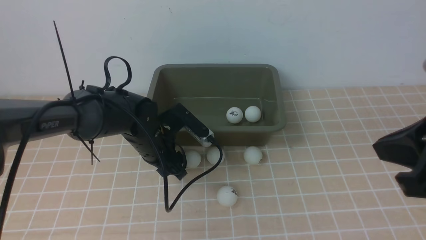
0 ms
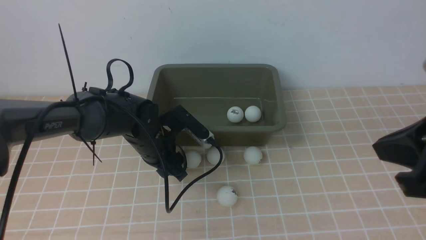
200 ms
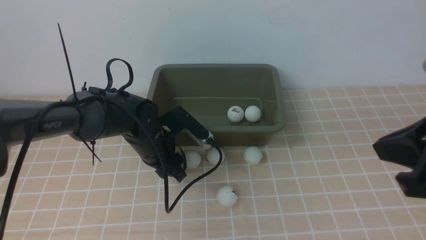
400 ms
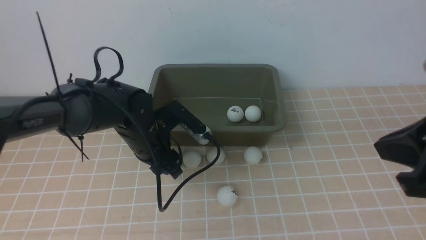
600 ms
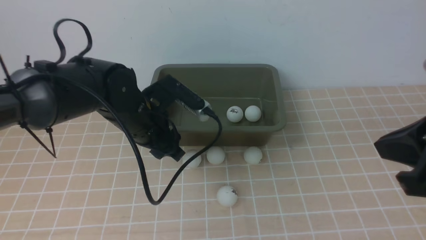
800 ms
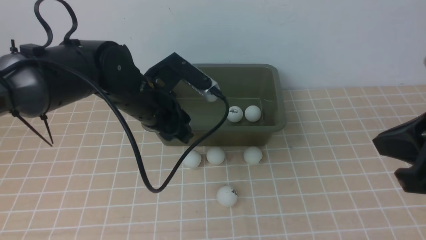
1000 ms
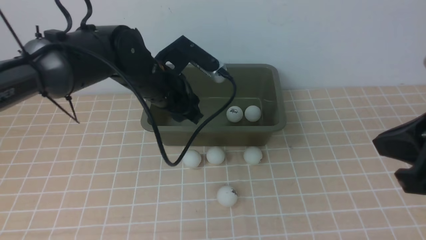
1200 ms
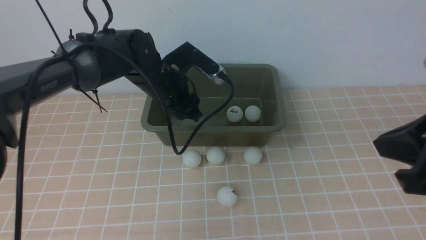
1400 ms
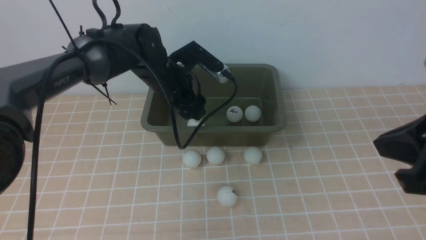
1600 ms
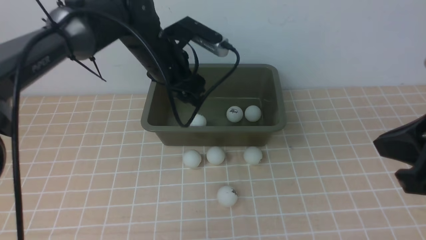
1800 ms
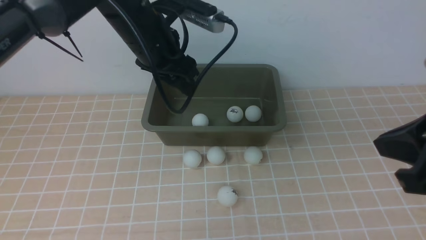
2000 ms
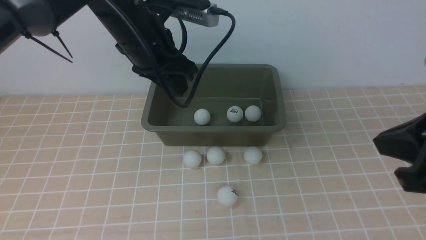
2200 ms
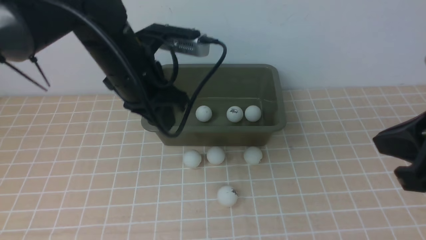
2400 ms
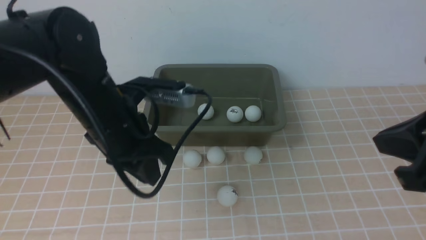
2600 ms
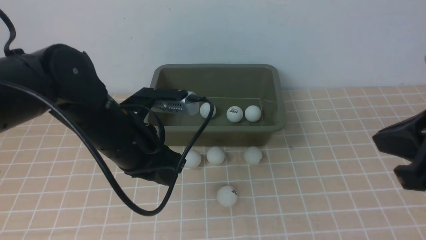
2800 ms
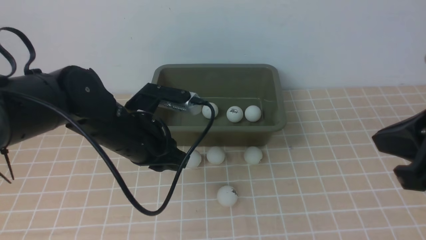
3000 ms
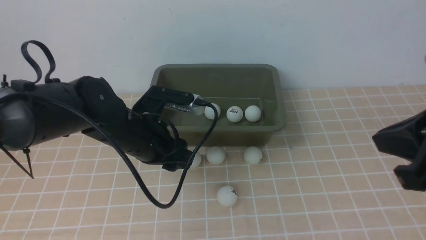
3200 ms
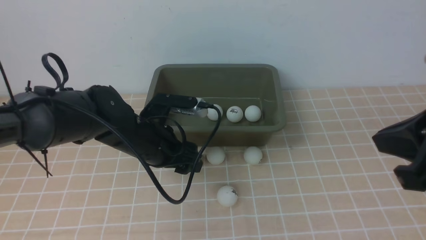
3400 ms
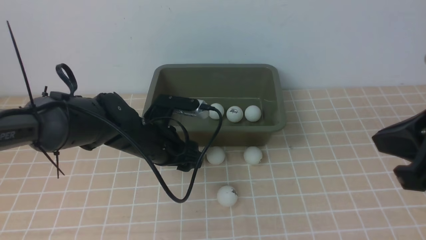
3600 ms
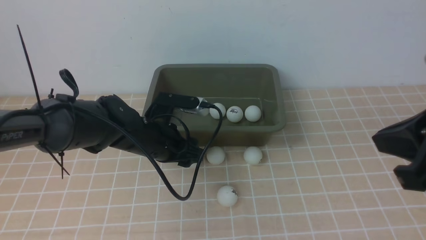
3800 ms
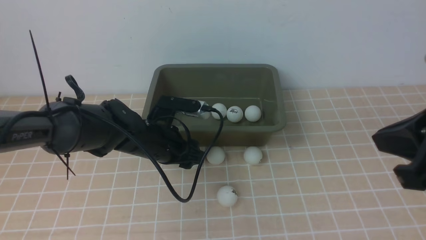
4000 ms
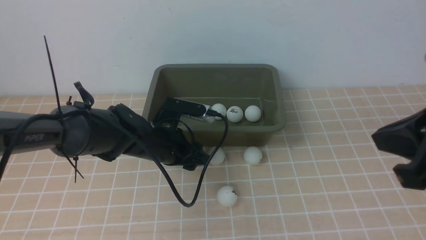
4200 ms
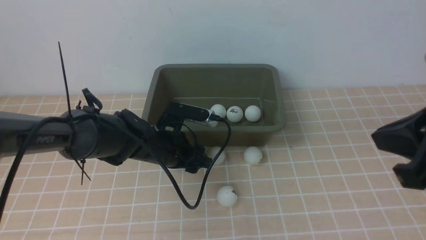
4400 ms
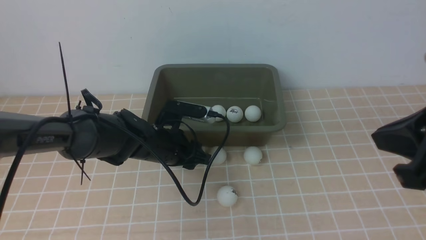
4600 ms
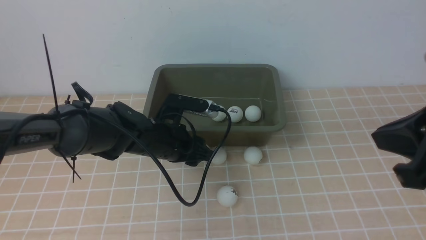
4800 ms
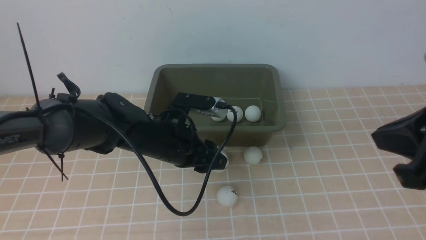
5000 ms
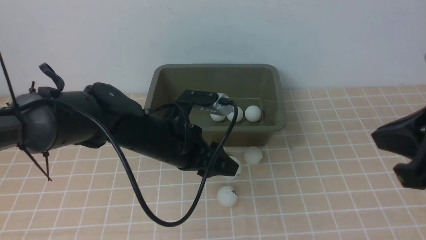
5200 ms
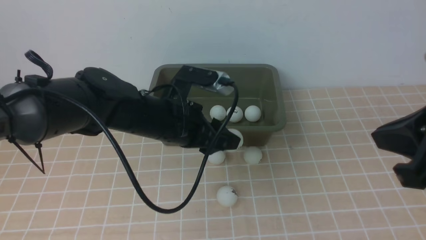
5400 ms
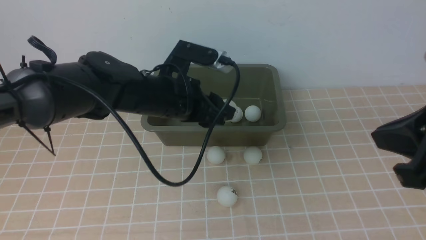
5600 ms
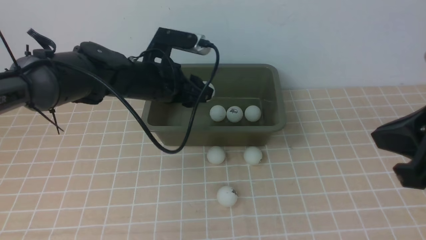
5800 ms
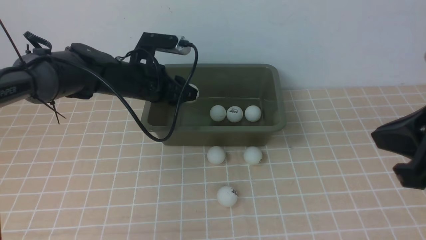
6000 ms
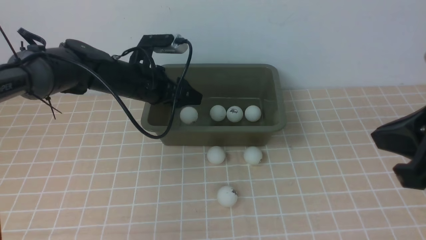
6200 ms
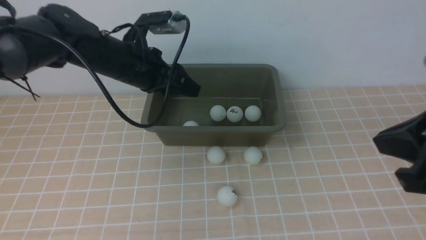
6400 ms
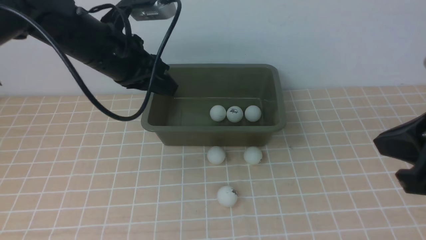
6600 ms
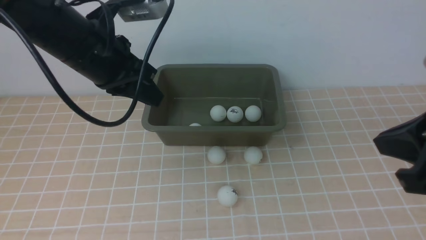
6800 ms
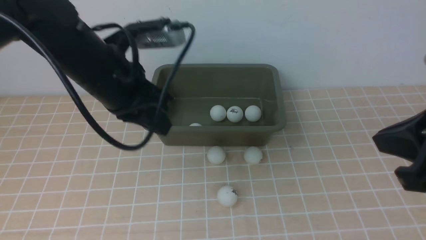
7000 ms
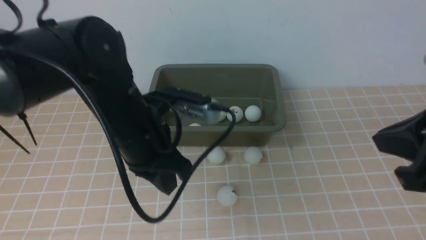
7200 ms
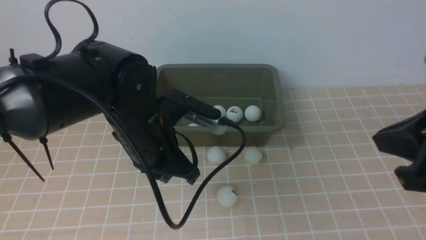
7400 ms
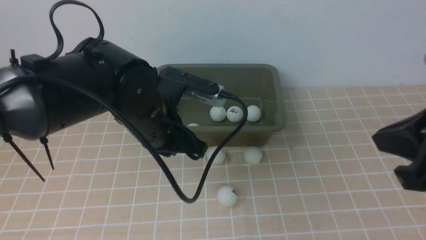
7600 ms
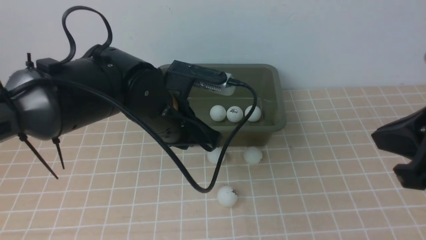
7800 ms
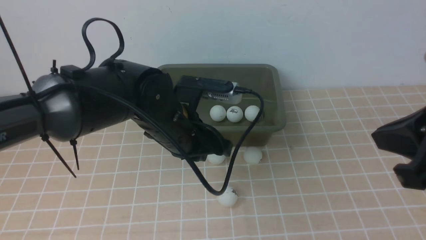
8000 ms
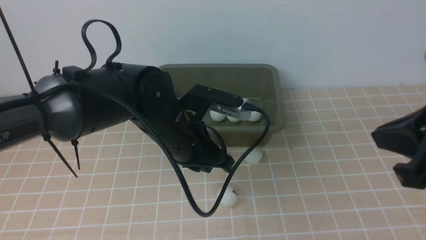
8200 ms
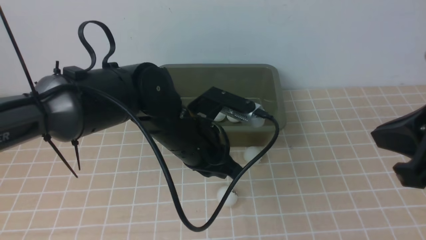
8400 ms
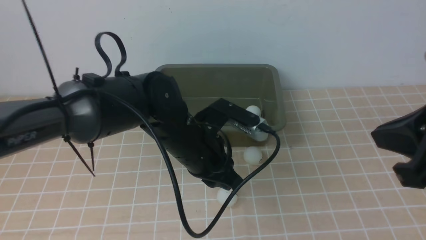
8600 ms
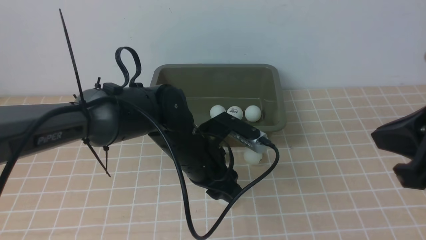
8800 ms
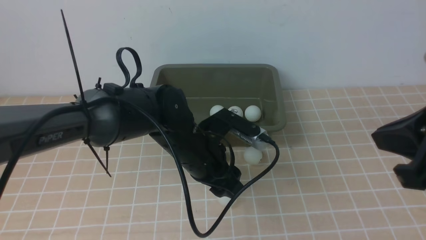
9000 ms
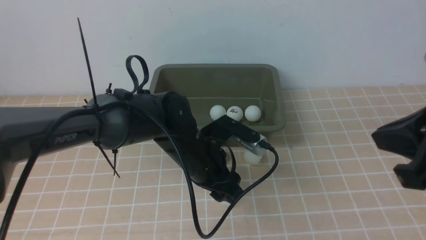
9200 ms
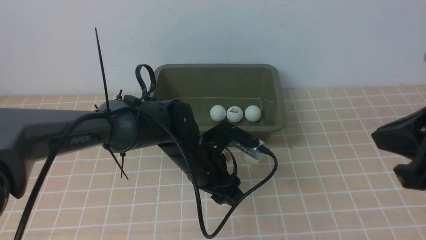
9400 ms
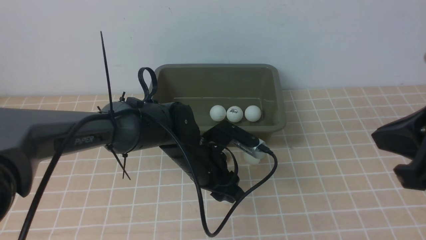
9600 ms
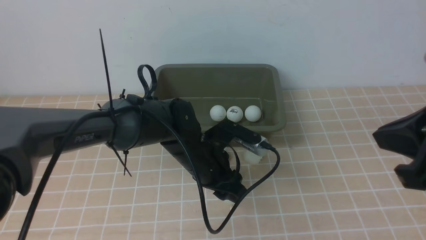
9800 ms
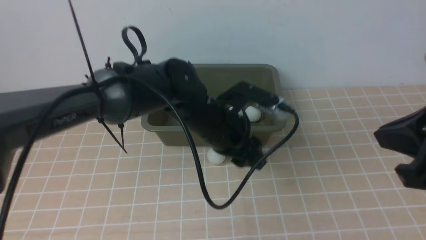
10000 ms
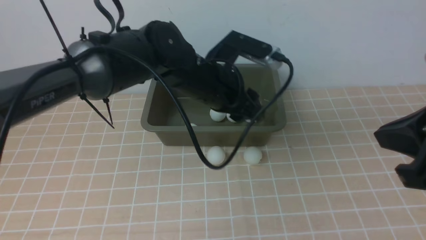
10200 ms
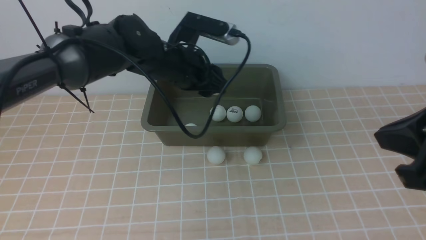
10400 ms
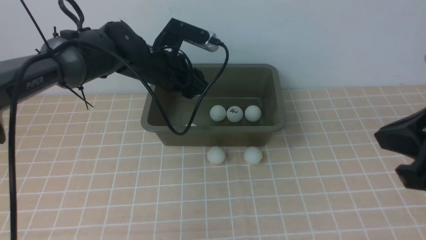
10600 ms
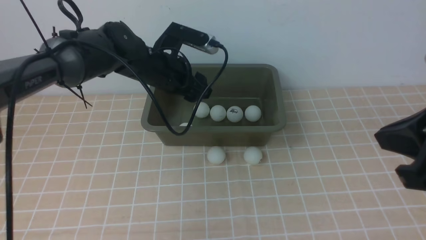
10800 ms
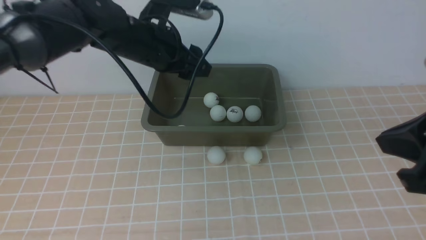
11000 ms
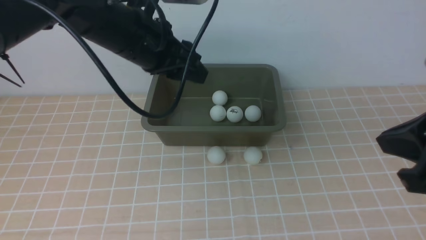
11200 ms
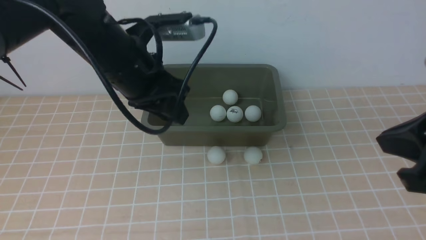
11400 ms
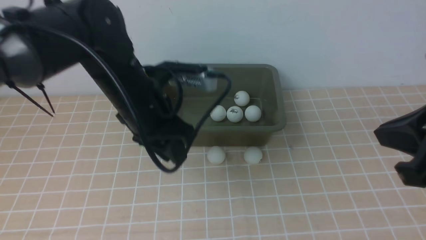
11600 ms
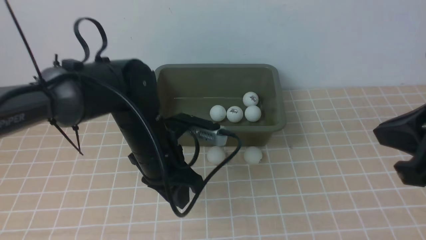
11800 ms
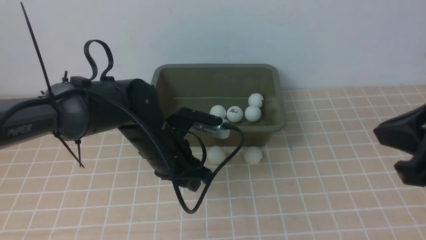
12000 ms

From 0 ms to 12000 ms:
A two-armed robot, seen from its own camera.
Step, from 1000 ms to 1800 ms: use the left arm to put the table tennis ball into the box.
Step, from 2000 ms to 4800 ms: use the left arm to clamp the table tennis ball closest to it.
Step, from 5200 ms to 6400 ms: use the left arm to put the table tennis ball into the box.
Step, from 6600 ms to 10000 ms: use the left arm to clamp the table tennis ball closest to it.
Step, from 10200 ms to 11000 ms: use the left arm to put the table tennis ball into the box.
From 0 ms to 1600 ms: The left gripper moves upward and forward, some 10 cm.
From 1600 ms to 3000 ms: The left gripper moves backward, roughly 15 cm, and closes its fingers.
From 3000 ms to 4400 ms: The left gripper goes approximately 10 cm downward and forward, and opens.
From 4400 ms to 6000 ms: The left gripper travels upward and forward by some 10 cm.
From 6000 ms to 7600 ms: The left gripper heads backward and to the right, covering approximately 15 cm, and closes.
From 7600 ms to 9000 ms: The left gripper moves downward, roughly 10 cm, and opens.
From 9000 ms to 10400 ms: The left gripper is displaced forward and upward by approximately 15 cm.
From 10400 ms to 12000 ms: The left gripper moves backward and downward, roughly 10 cm, and closes its fingers.

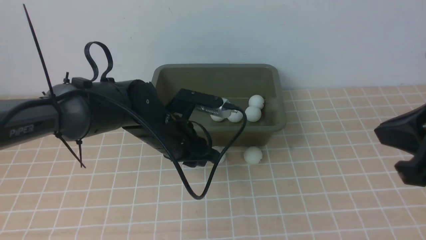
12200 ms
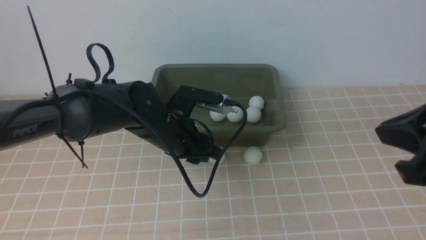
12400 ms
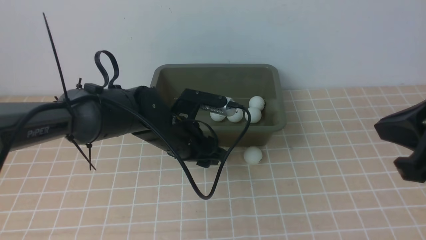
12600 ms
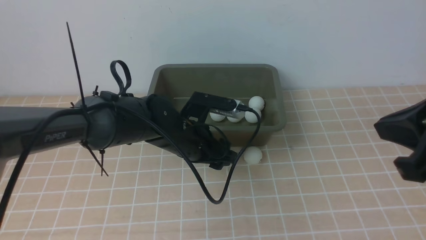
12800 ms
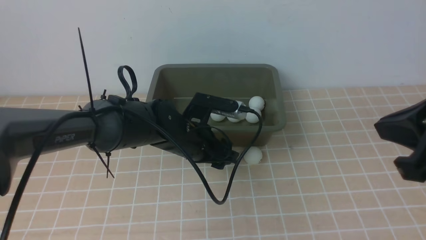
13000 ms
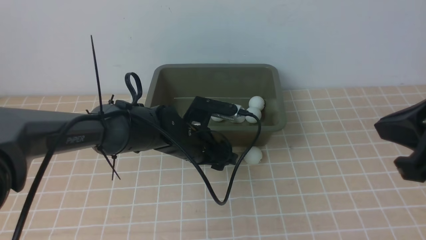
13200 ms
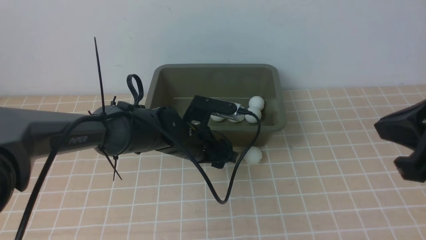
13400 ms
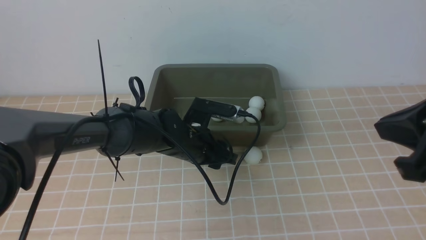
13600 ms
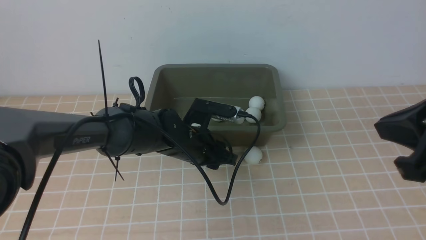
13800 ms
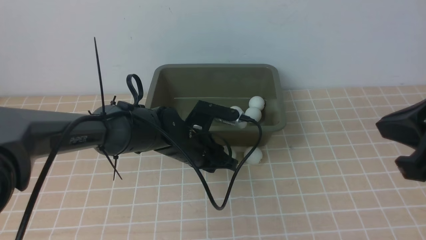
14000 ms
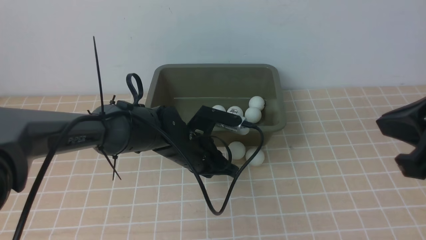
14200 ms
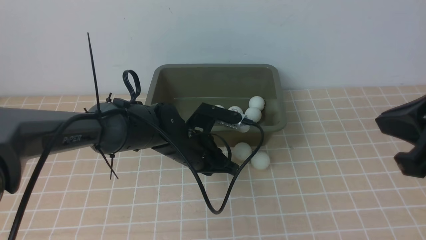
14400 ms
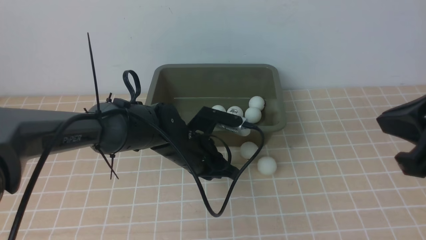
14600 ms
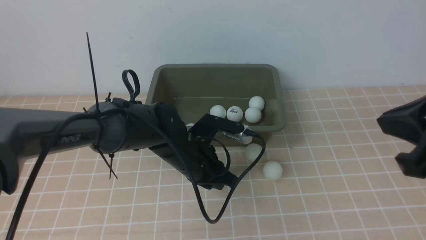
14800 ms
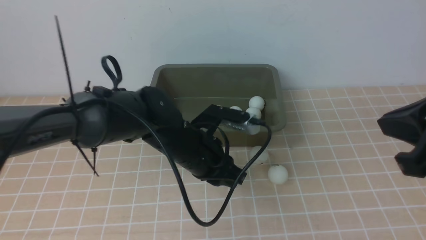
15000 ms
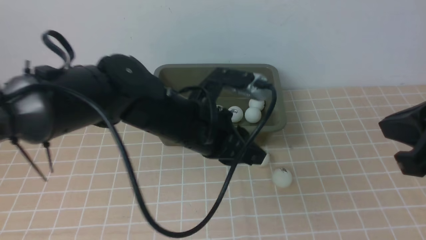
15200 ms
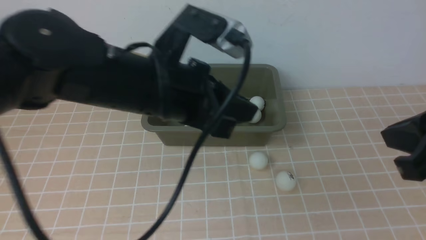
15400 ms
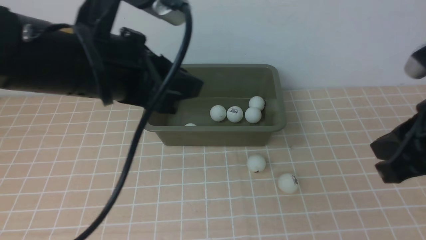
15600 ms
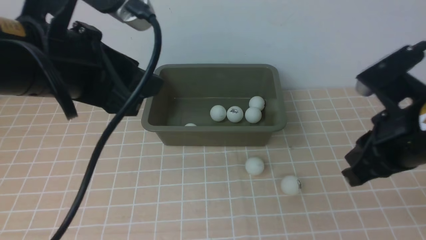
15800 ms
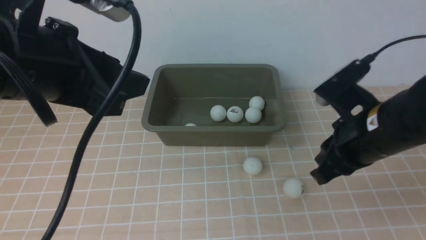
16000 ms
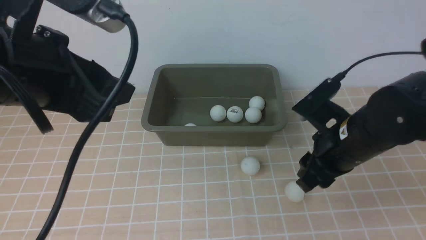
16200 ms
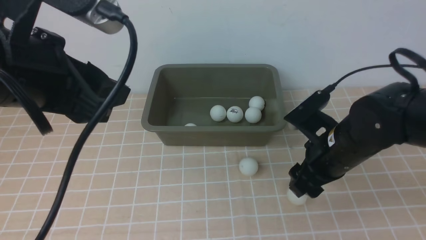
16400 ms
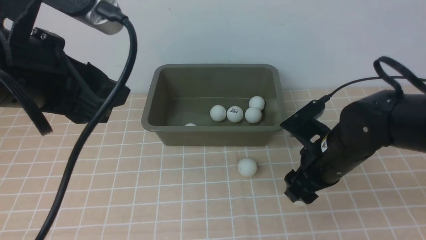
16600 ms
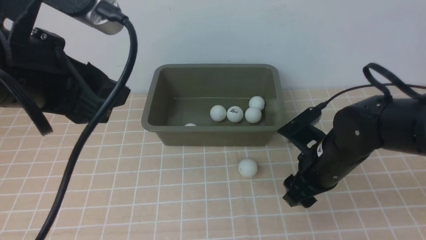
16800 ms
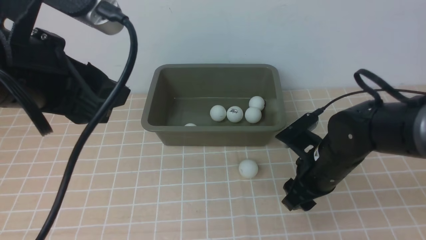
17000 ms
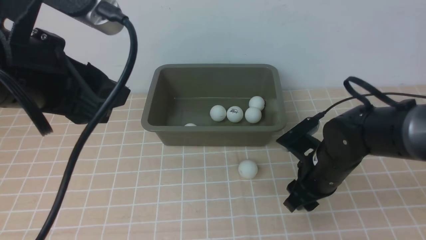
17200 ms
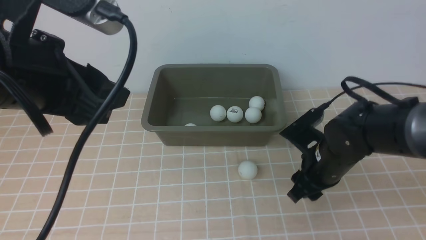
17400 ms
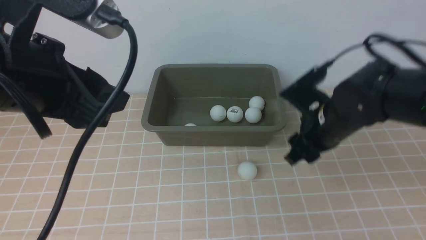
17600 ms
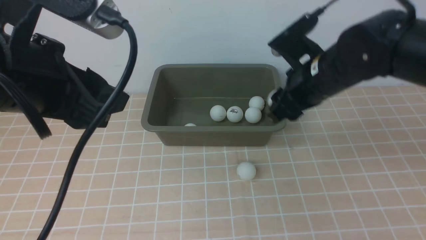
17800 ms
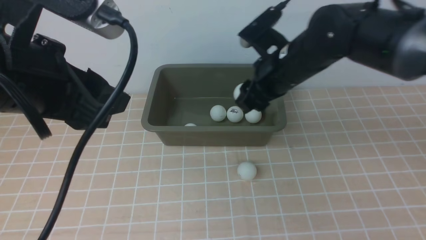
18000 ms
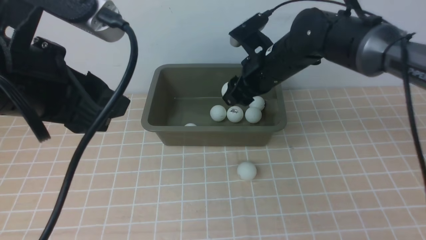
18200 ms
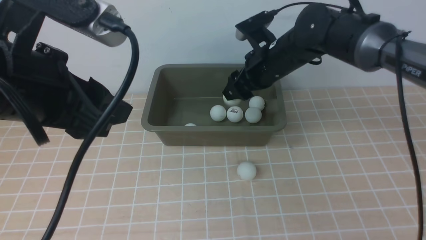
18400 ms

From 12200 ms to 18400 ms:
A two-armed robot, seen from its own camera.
Step, from 12200 ms to 17600 ms: use the right arm to clamp the table tennis ball closest to it.
From 12200 ms to 13800 ms: The left gripper changes place by roughly 5 cm, and opens, then closes once more.
From 13800 ms to 15400 ms: The left gripper travels upward and backward by approximately 20 cm.
From 15400 ms to 16800 ms: The left gripper moves to the left, upward and backward, some 10 cm, and opens its fingers. The right gripper travels downward and forward by approximately 20 cm, and opens.
From 16800 ms to 18400 ms: The right gripper goes some 20 cm forward, upward and to the left.
